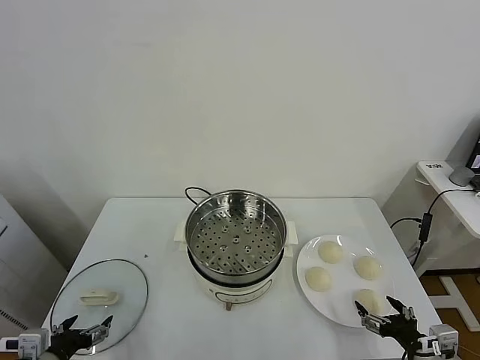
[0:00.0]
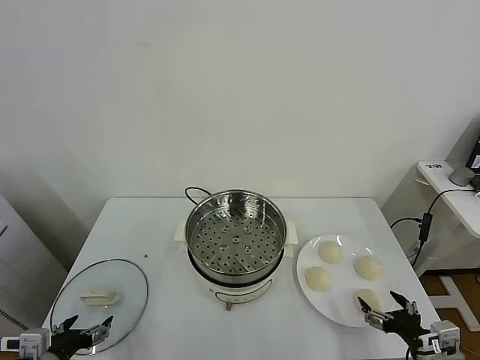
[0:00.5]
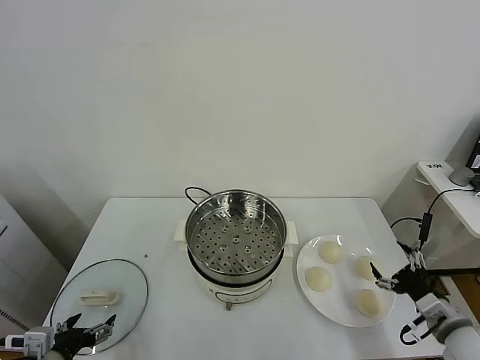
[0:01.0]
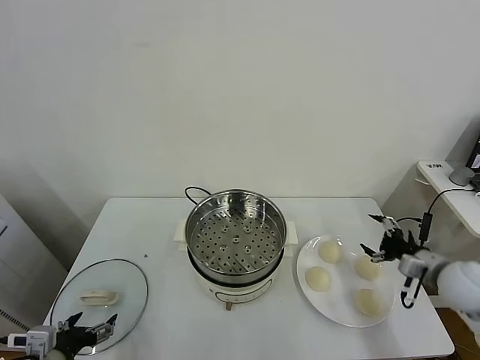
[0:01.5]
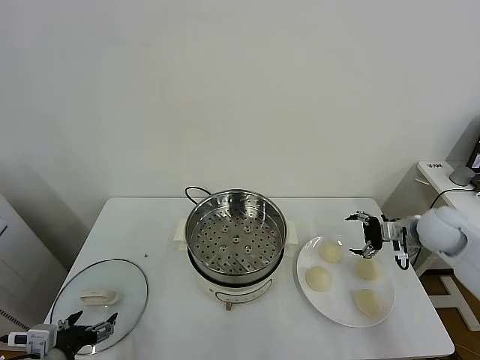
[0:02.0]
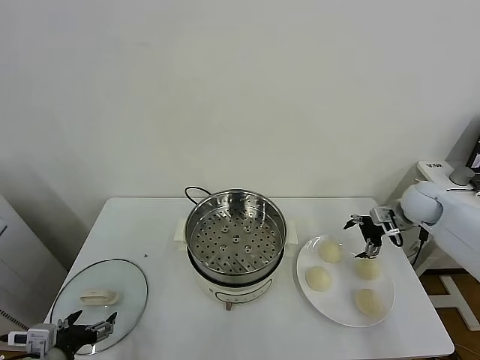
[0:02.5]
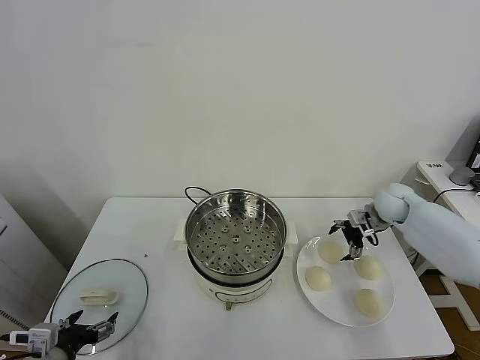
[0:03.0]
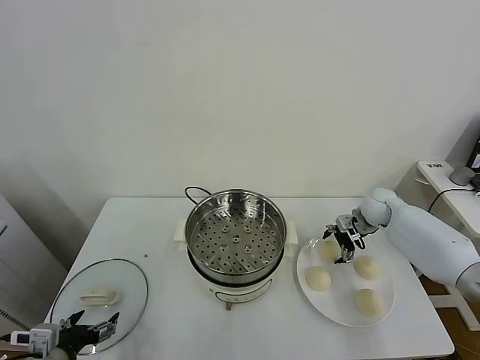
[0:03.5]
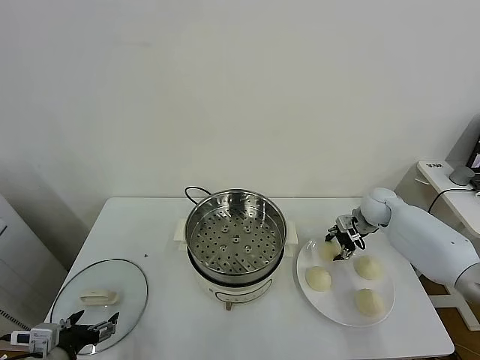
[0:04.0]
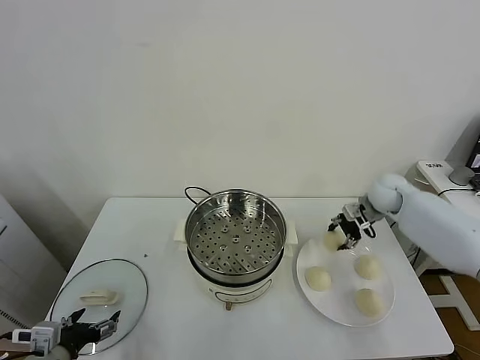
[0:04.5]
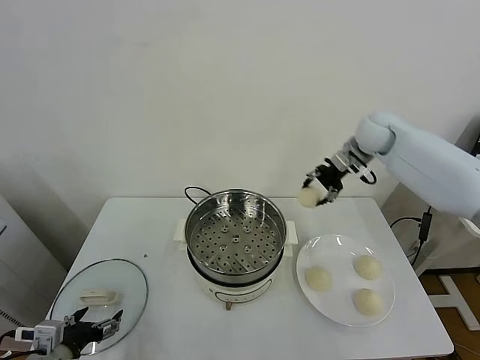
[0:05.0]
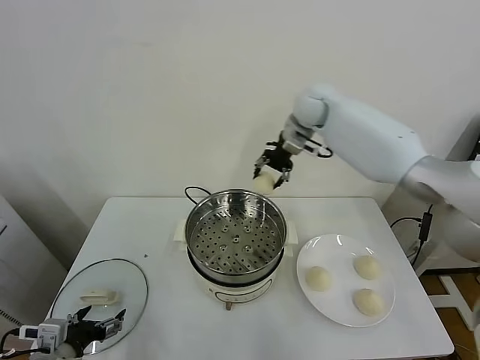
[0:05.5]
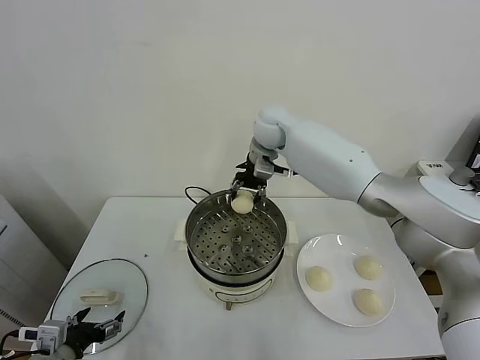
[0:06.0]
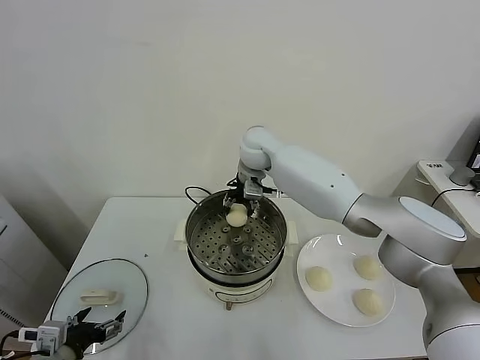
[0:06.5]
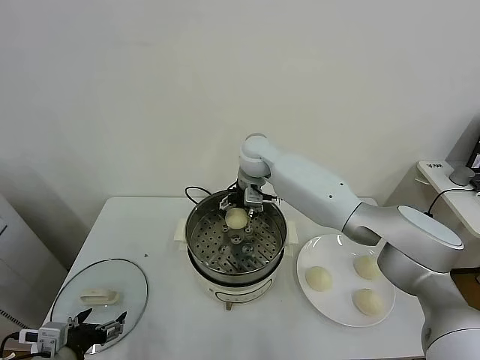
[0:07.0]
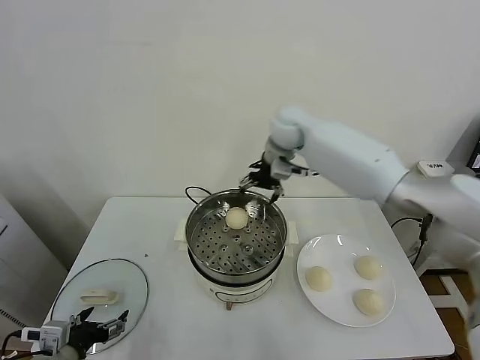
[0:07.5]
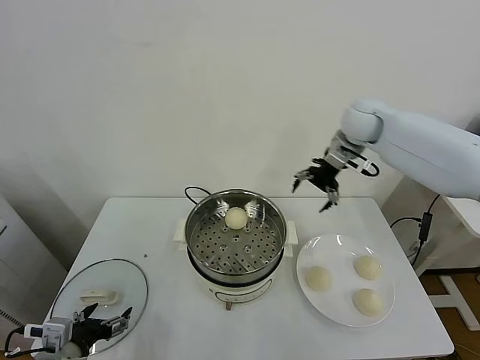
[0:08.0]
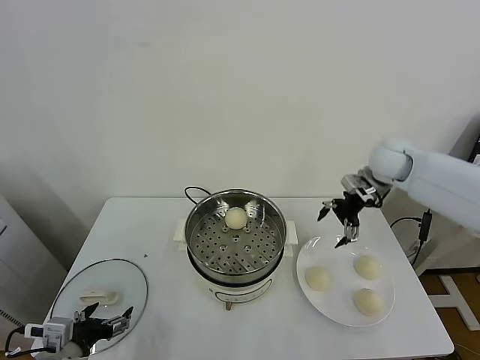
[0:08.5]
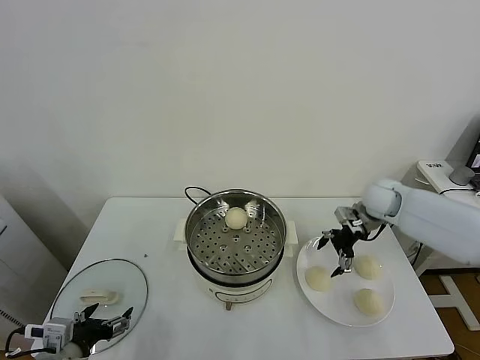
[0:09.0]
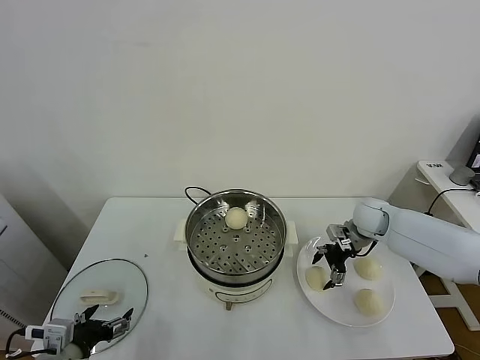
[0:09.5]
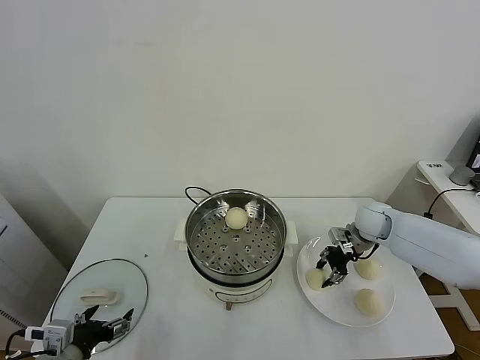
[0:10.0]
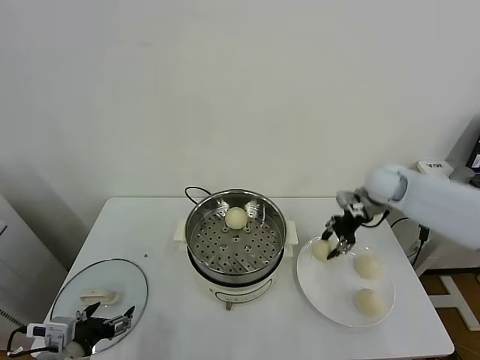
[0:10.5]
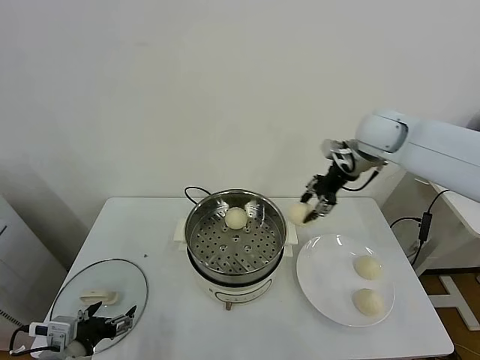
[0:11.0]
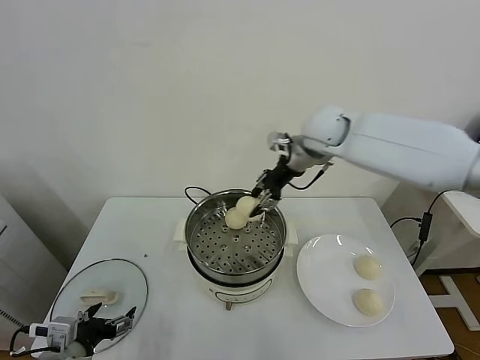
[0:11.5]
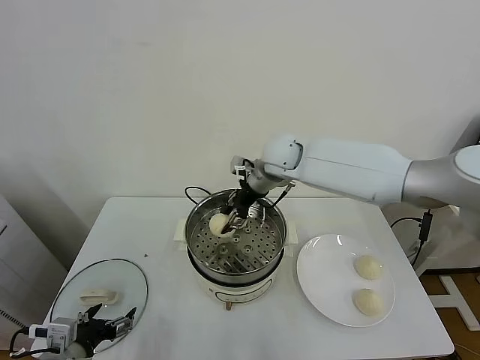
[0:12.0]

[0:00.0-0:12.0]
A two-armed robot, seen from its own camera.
Task of the whole recording: take steamed baozi put them in steamer.
Step, 0:00.0 to 0:03.5: Grasp the baozi in the plate with right gripper.
Step, 0:04.0 to 0:07.0: Place the baozi on the steamer with right gripper.
Step, 0:07.5 to 0:09.5: Grasp the baozi in the plate with right gripper.
0:02.0 to 0:04.0: The right gripper moves forward, downward and to the left, some 15 cm, and closes.
0:04.0 to 0:06.0: The right gripper heads to the left and upward, covering some 35 cm.
0:06.0 to 0:08.0: The right gripper is displaced to the right by some 25 cm, and opens its fingers.
0:08.0 to 0:10.0: The right gripper is displaced downward by roughly 25 cm, and closes.
0:10.0 to 0:12.0: The right gripper goes some 30 cm to the left and upward.

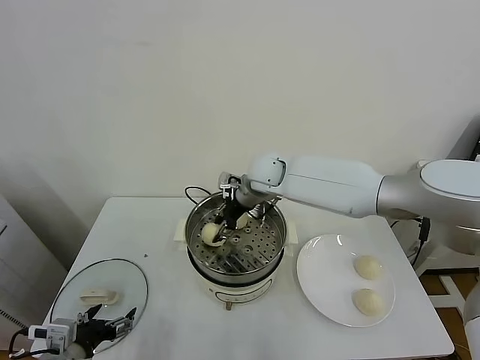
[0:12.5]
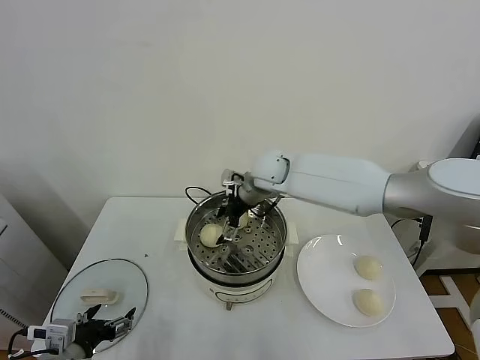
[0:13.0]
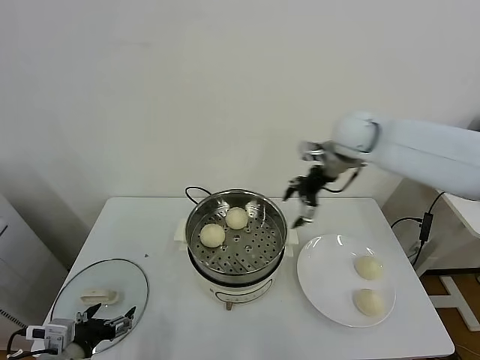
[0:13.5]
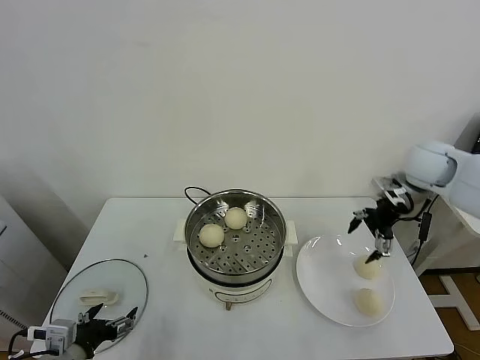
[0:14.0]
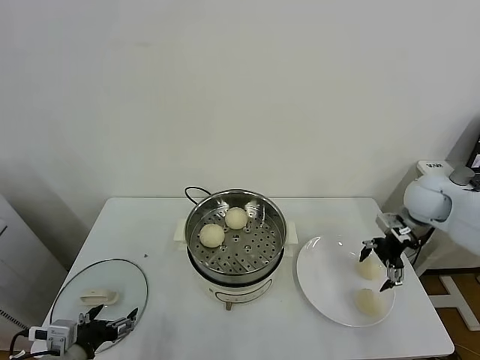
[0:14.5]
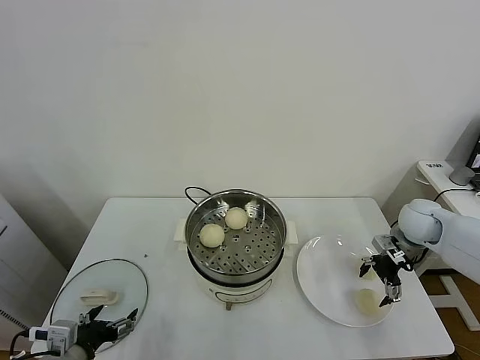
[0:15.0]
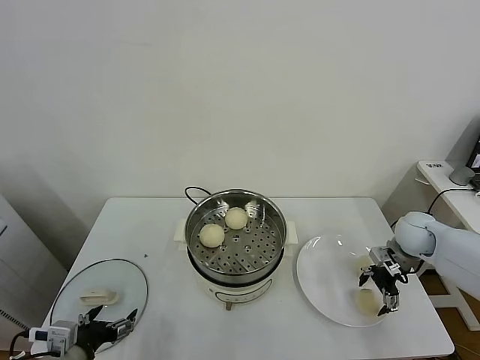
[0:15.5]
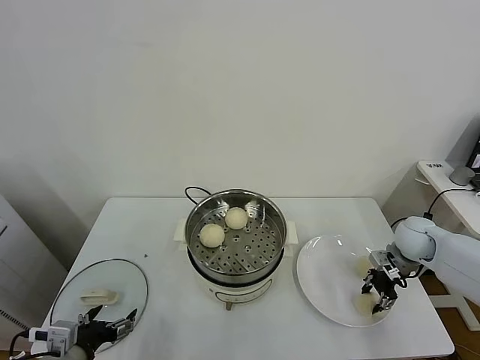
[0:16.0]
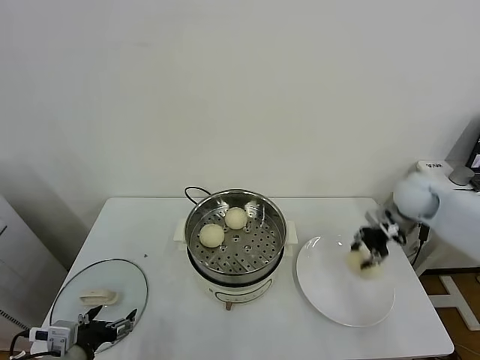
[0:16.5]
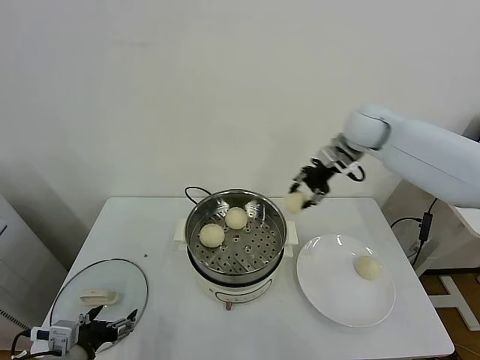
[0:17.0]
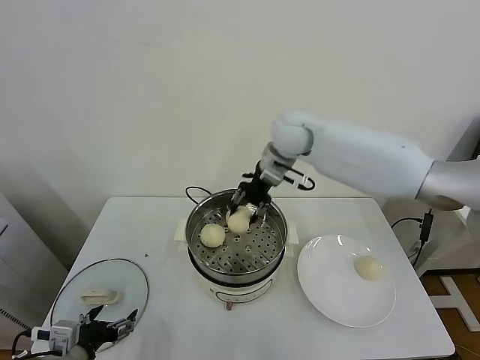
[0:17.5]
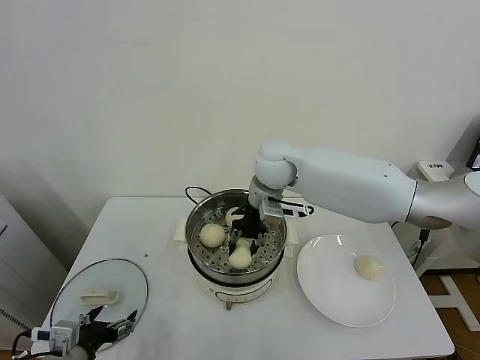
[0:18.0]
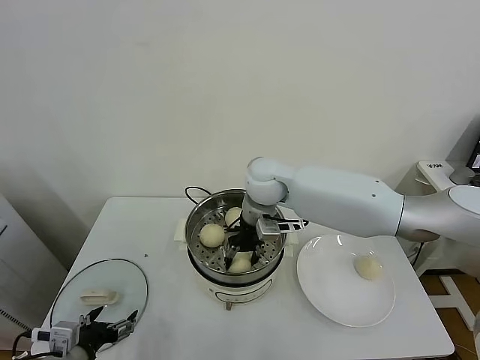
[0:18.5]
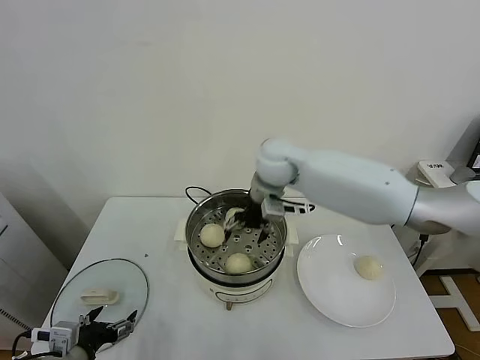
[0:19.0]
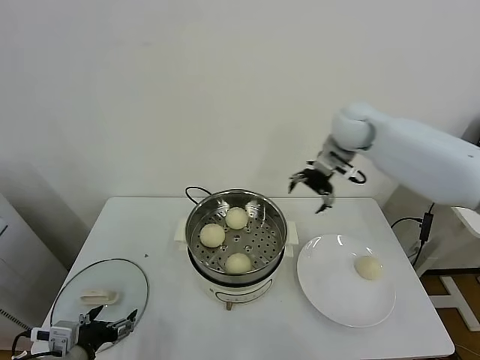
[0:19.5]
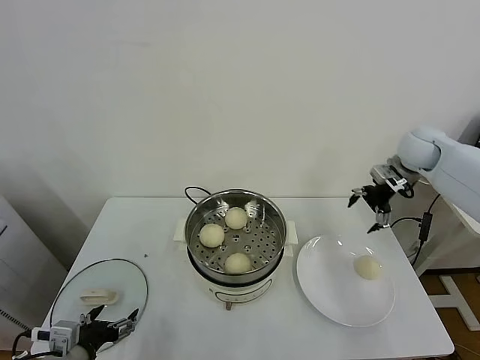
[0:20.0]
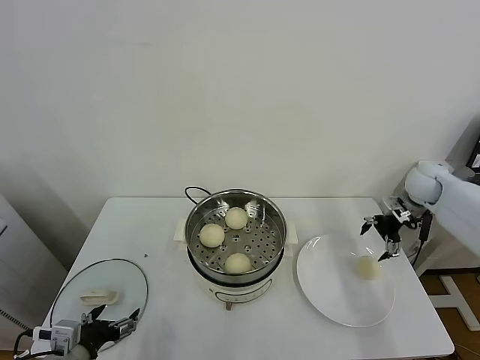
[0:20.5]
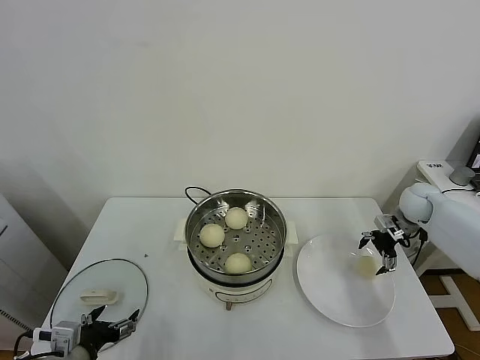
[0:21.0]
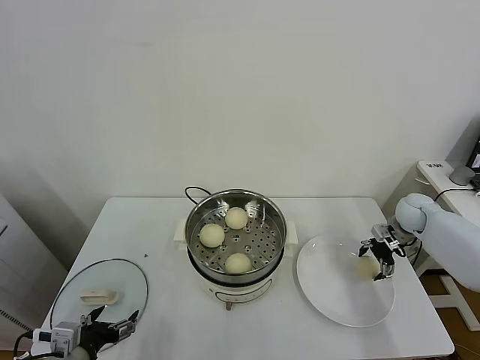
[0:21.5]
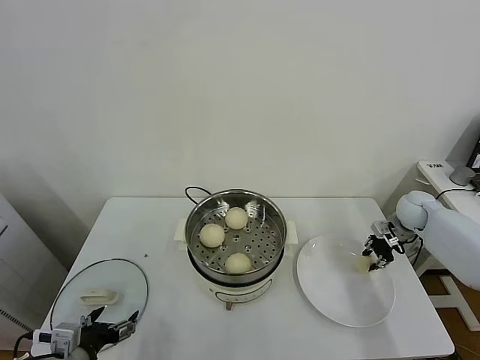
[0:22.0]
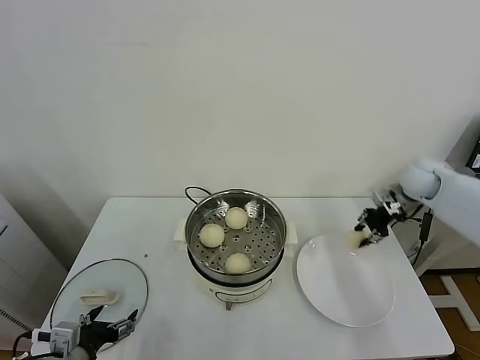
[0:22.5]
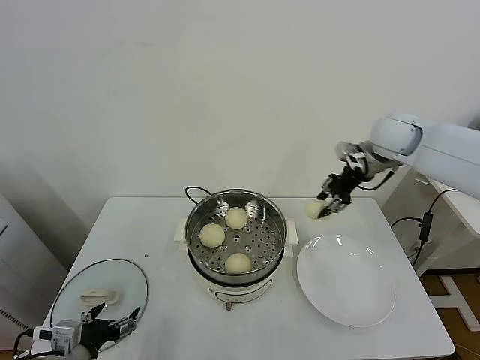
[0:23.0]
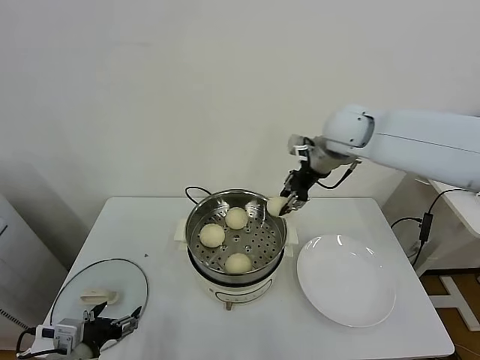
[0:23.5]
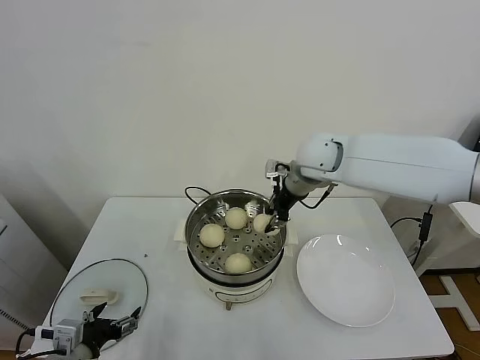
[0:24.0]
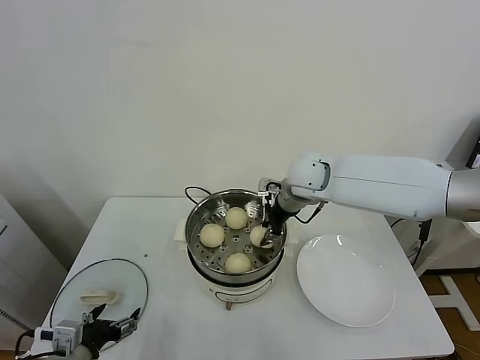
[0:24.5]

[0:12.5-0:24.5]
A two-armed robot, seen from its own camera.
Task of the whole recording: take steamed baozi put them in steamer.
Step, 0:13.0 to 0:15.5: Grasp the baozi in the plate with right gripper.
Step, 0:16.0 to 0:18.5: Place the baozi on the steamer with right gripper.
Step, 0:19.0 to 0:21.5: Grasp the baozi in the plate with right gripper.
0:12.5 to 0:14.5: The right gripper goes approximately 35 cm to the right, and opens.
0:14.5 to 0:16.5: The right gripper reaches about 10 cm downward, then returns, and closes its fingers.
0:16.5 to 0:18.5: The right gripper shifts roughly 35 cm to the left, and opens.
0:18.5 to 0:20.5: The right gripper moves to the right, roughly 40 cm, and opens.
0:20.5 to 0:22.5: The right gripper reaches approximately 10 cm downward, then returns, and closes up.
0:22.5 to 0:24.5: The right gripper heads to the left, covering some 30 cm.

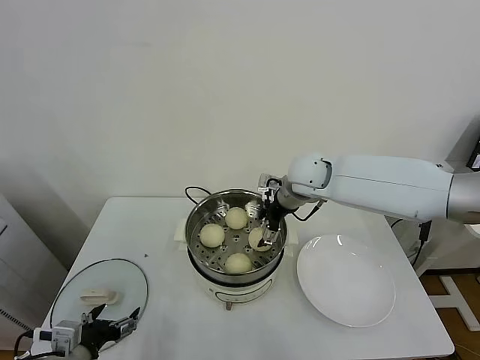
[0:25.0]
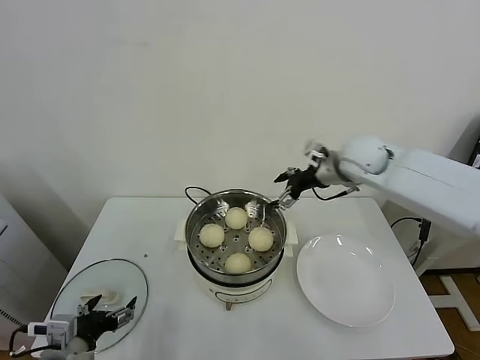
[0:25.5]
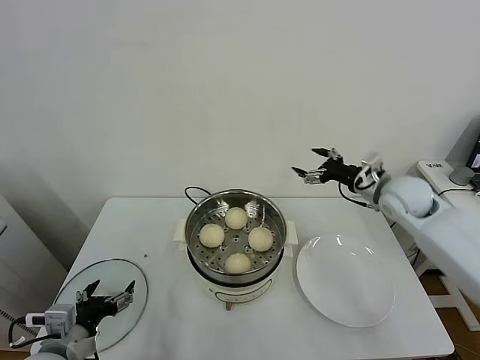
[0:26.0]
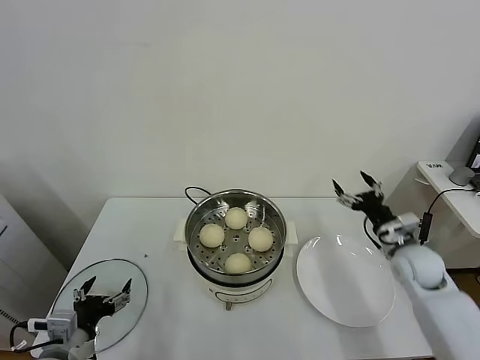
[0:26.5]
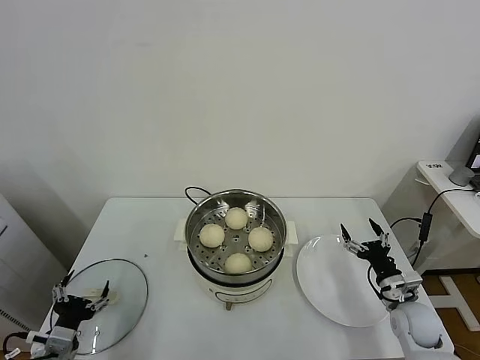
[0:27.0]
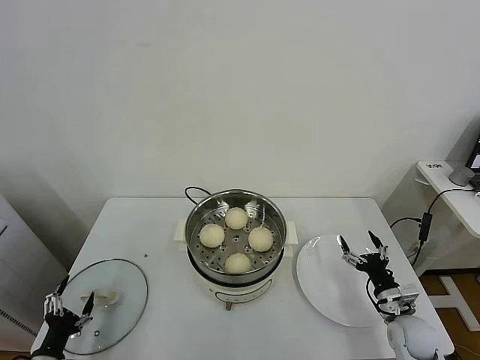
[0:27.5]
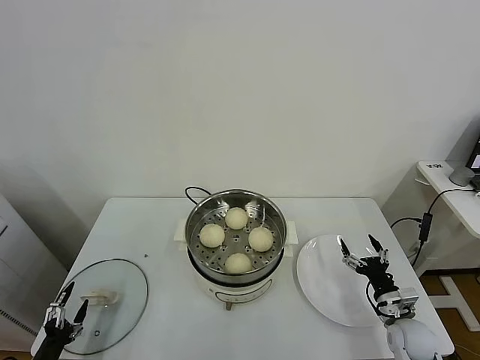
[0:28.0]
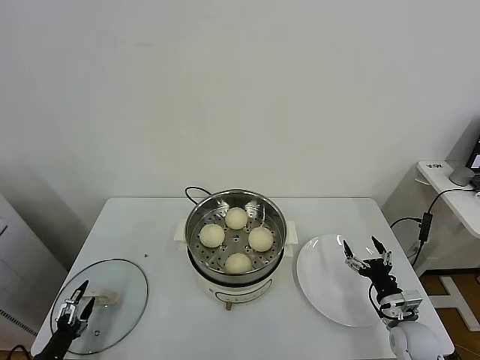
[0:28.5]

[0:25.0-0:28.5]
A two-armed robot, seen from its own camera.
Task of the whole recording: take steamed baozi put them in steamer.
0:25.0 to 0:27.0: The left gripper travels downward by about 5 cm. Meanwhile the right gripper is displaced downward, to the right and backward by roughly 40 cm.
0:27.0 to 0:28.5: The left gripper moves downward and to the left, some 15 cm.
